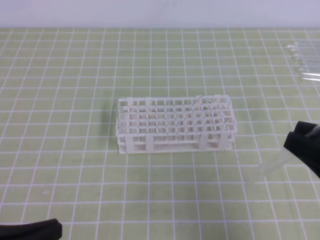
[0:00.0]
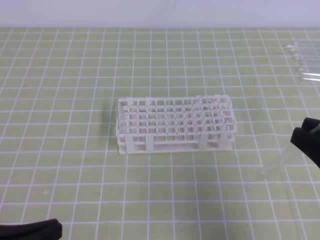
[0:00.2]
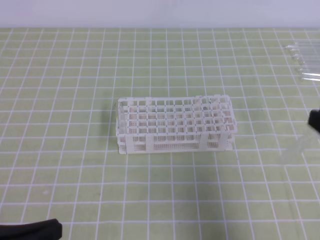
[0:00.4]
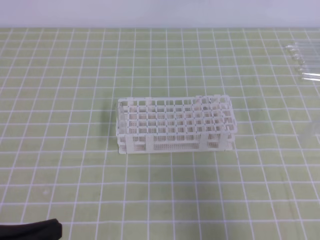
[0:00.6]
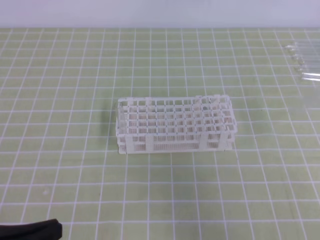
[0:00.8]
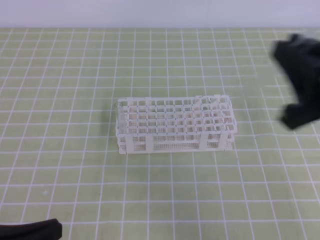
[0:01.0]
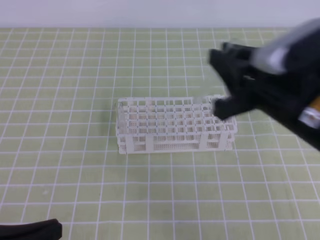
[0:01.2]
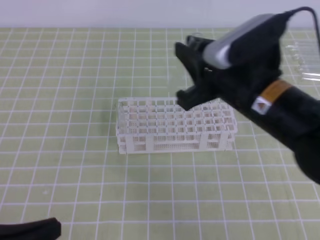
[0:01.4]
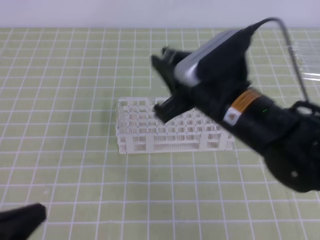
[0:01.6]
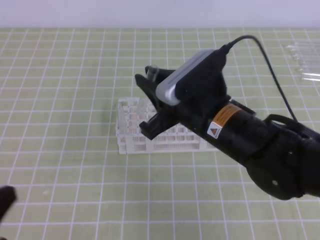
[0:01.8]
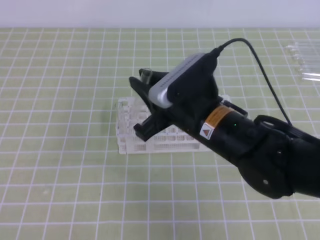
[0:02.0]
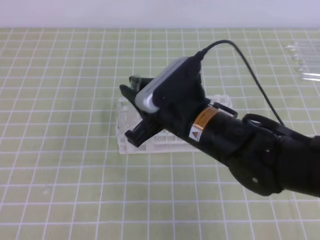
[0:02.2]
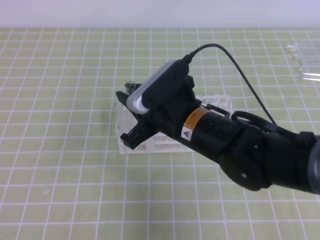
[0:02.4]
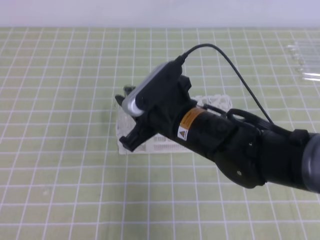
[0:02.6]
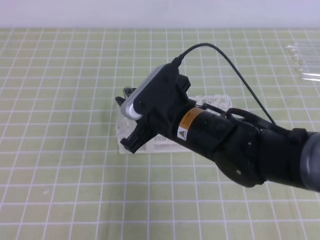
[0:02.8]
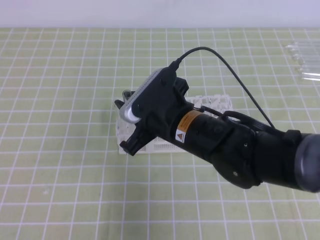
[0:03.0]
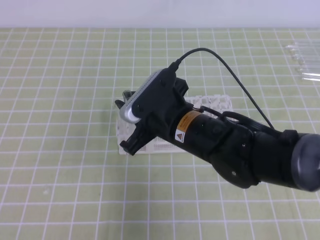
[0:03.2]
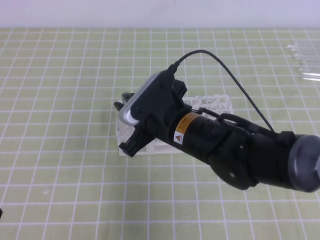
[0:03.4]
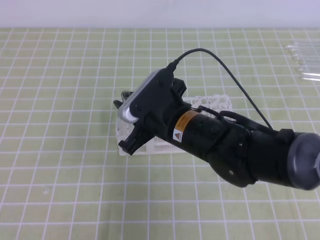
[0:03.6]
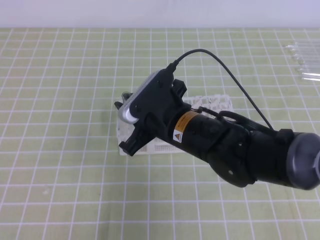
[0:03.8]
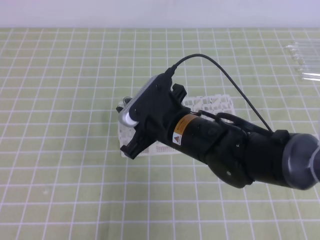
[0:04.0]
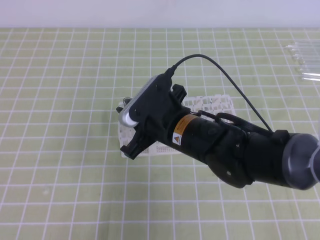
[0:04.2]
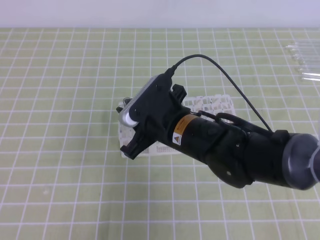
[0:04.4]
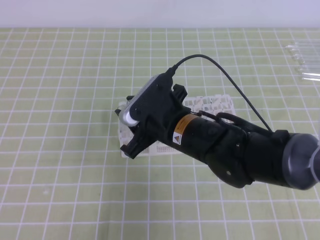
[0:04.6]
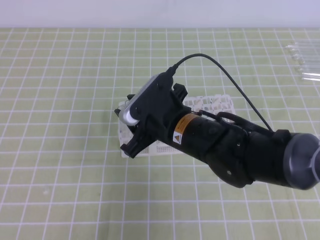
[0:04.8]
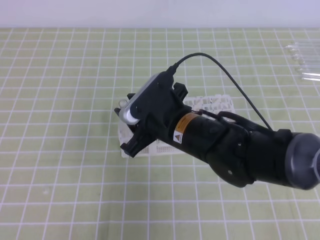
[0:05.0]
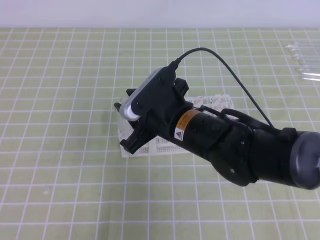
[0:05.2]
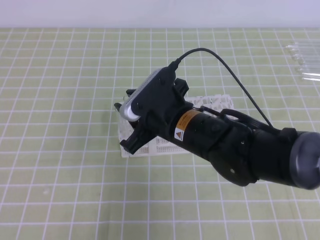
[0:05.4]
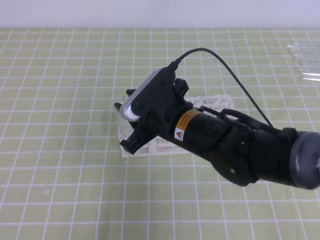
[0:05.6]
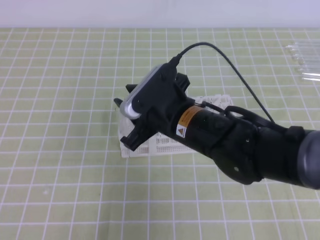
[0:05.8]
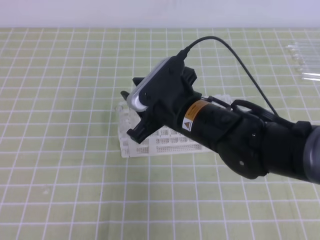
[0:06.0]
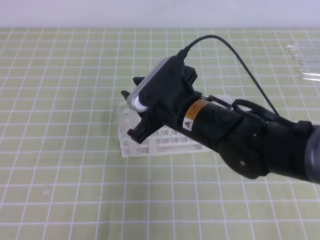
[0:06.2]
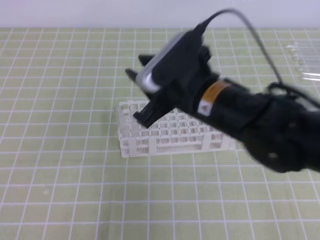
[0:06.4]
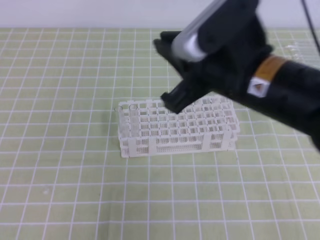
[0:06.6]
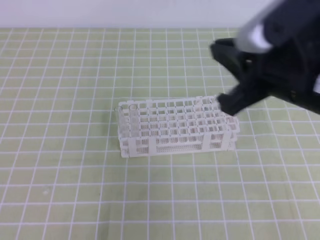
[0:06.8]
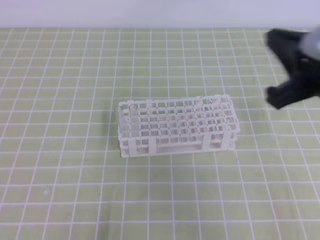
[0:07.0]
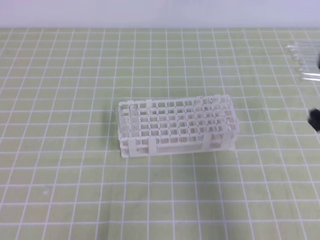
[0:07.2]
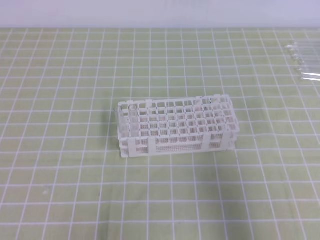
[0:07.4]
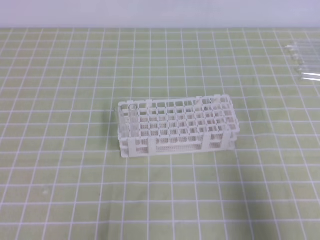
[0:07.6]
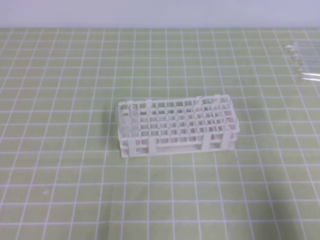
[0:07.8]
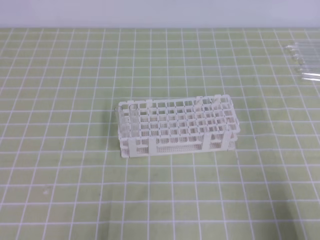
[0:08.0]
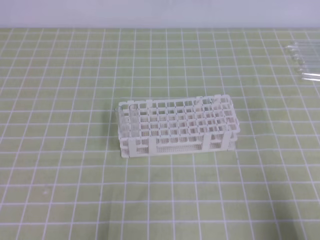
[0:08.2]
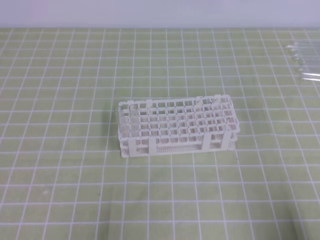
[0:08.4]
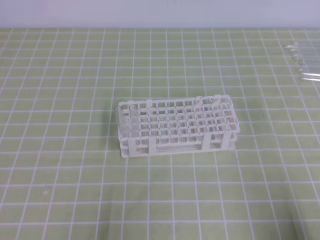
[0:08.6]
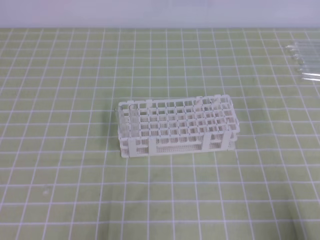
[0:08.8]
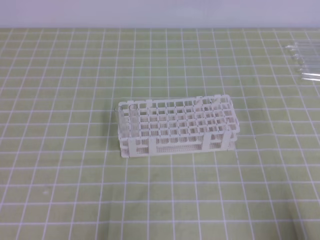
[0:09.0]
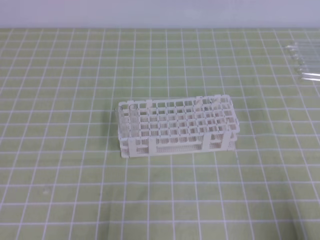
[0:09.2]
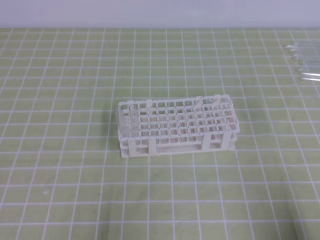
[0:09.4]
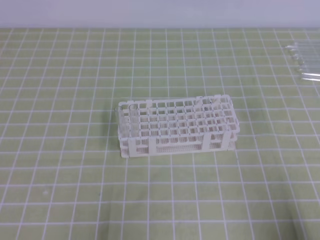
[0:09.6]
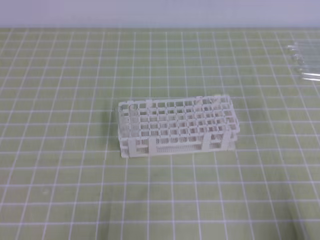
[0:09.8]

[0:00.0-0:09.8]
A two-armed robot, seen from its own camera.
0:00.0 to 0:01.4: The right gripper heads to the left and forward, covering about 15 cm.
0:01.4 to 0:02.8: The right gripper goes roughly 10 cm to the left and downward. Meanwhile the left gripper is displaced downward by about 5 cm.
0:02.8 to 0:04.2: The grippers stay close to where they were, moving slightly.
0:04.2 to 0:05.6: Neither gripper changes place.
0:05.6 to 0:07.0: The right gripper shifts roughly 20 cm to the right and upward, and closes.
0:07.0 to 0:08.4: The right gripper goes approximately 25 cm downward, backward and to the right.
0:08.4 to 0:09.8: The two grippers keep their place.
